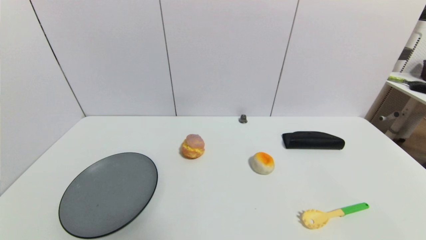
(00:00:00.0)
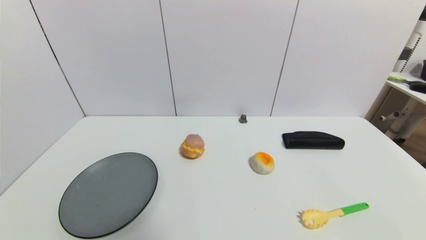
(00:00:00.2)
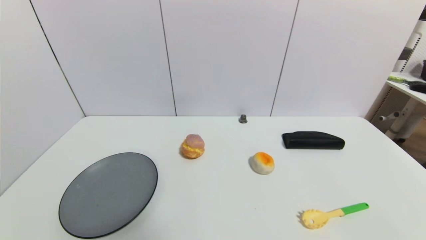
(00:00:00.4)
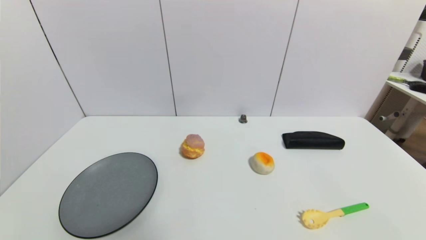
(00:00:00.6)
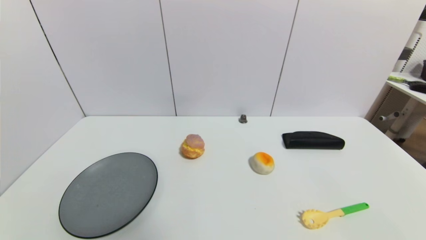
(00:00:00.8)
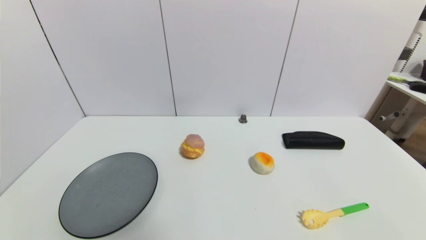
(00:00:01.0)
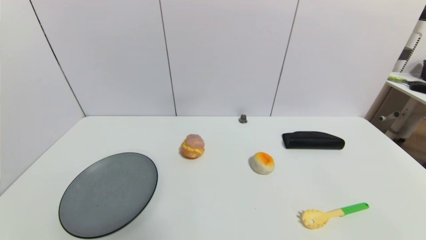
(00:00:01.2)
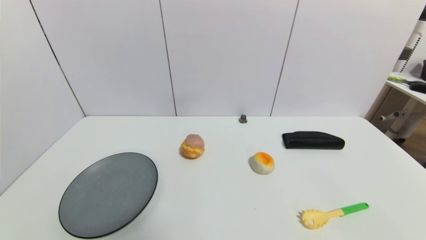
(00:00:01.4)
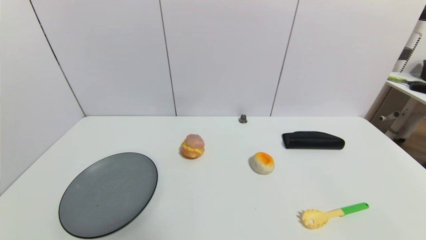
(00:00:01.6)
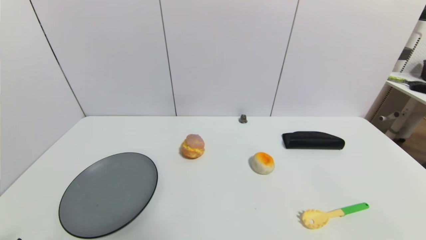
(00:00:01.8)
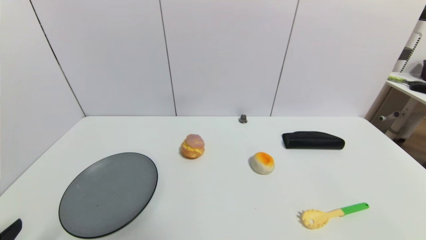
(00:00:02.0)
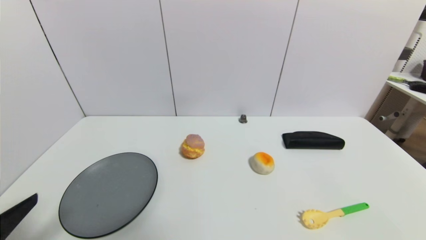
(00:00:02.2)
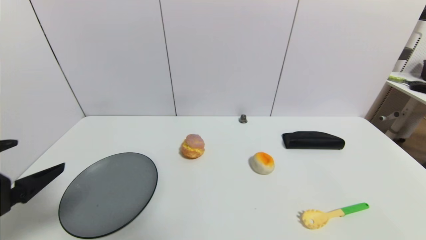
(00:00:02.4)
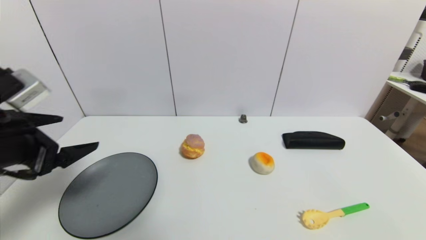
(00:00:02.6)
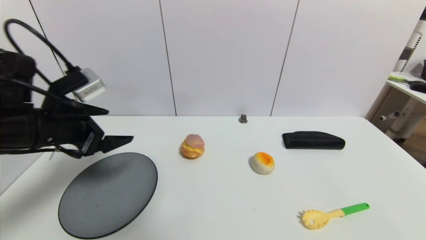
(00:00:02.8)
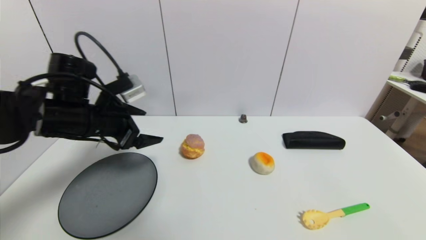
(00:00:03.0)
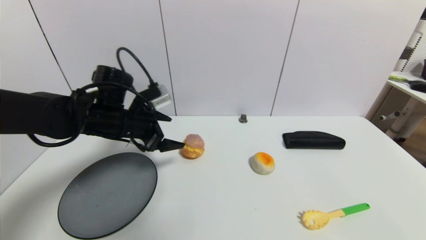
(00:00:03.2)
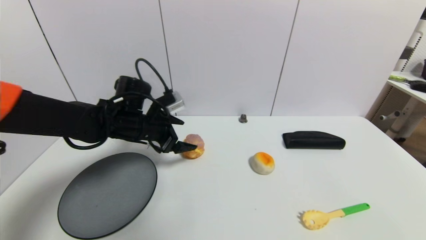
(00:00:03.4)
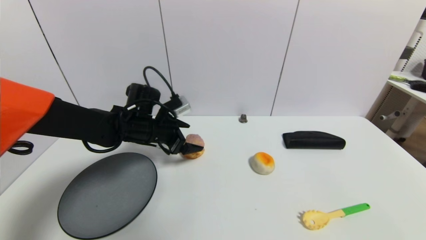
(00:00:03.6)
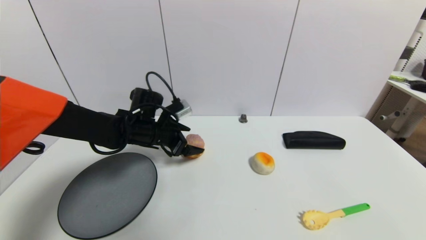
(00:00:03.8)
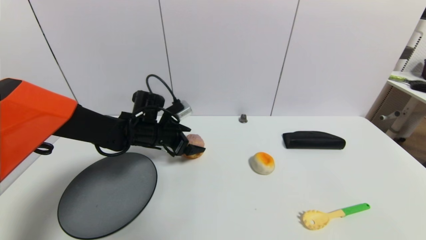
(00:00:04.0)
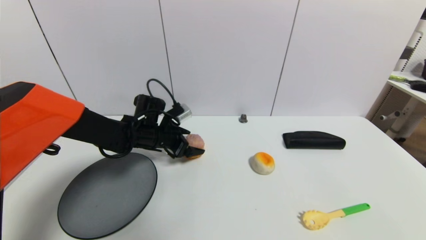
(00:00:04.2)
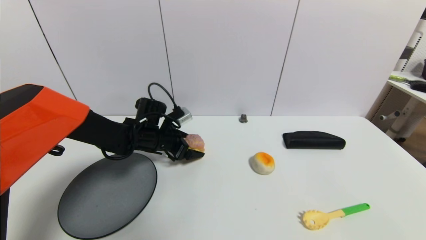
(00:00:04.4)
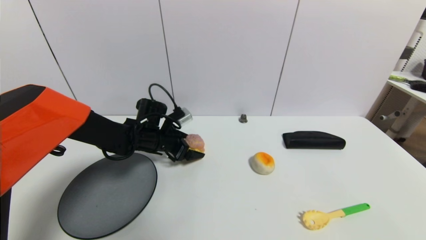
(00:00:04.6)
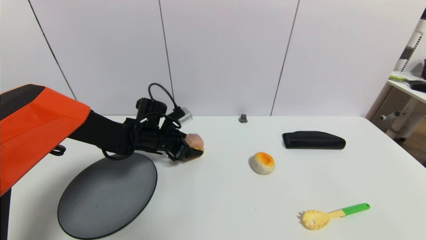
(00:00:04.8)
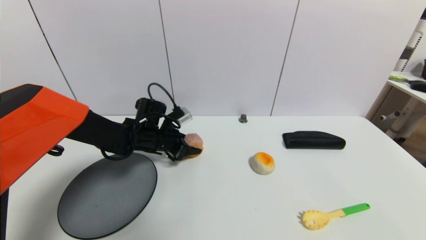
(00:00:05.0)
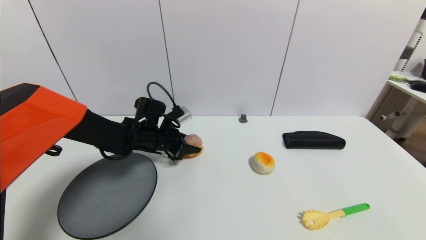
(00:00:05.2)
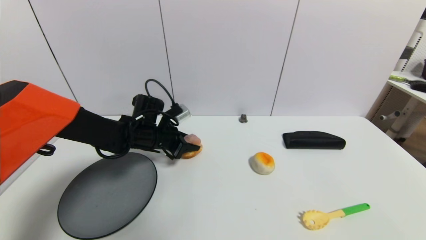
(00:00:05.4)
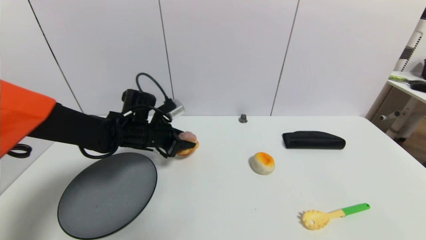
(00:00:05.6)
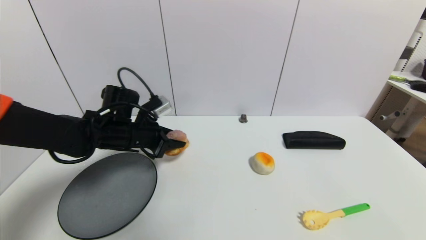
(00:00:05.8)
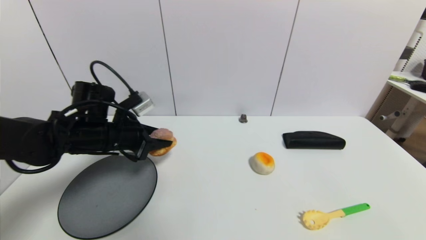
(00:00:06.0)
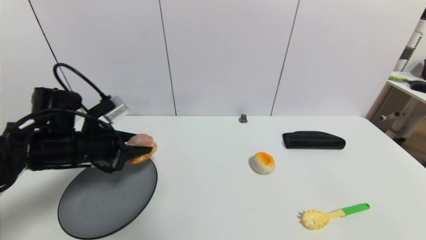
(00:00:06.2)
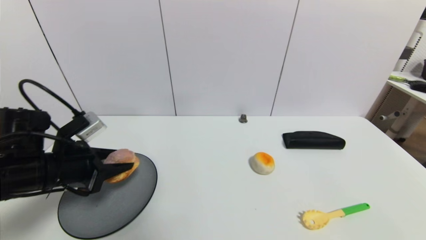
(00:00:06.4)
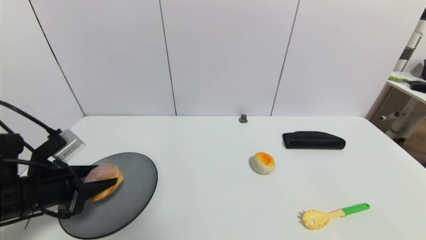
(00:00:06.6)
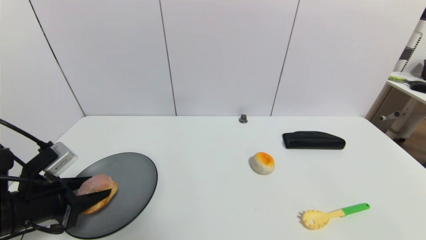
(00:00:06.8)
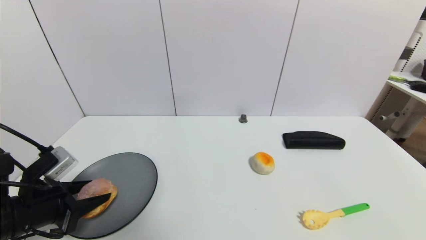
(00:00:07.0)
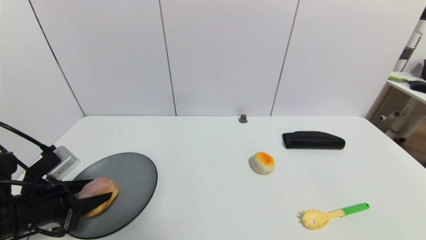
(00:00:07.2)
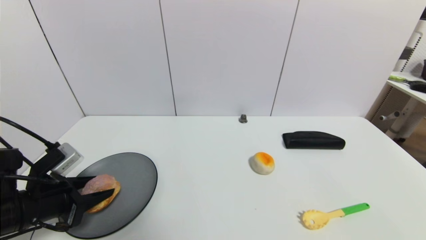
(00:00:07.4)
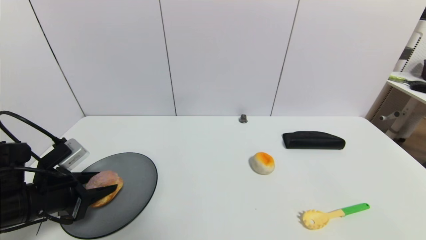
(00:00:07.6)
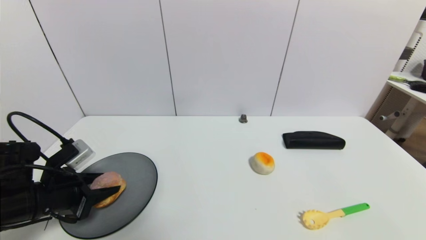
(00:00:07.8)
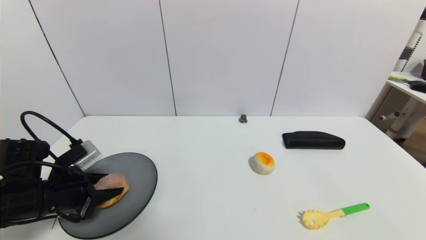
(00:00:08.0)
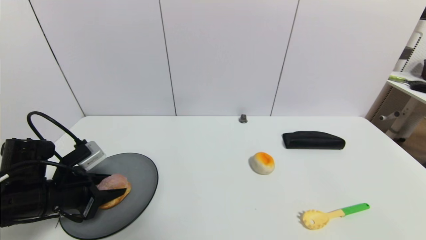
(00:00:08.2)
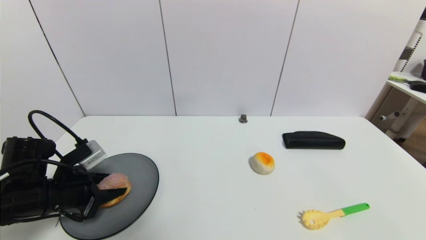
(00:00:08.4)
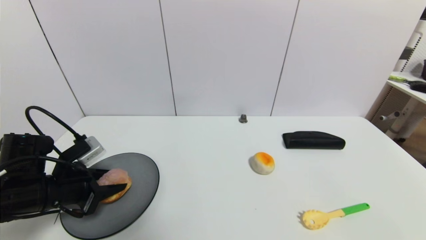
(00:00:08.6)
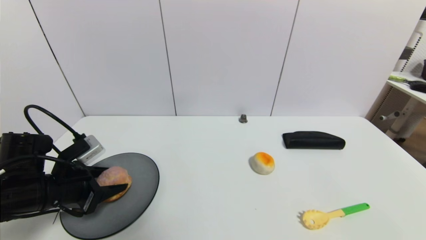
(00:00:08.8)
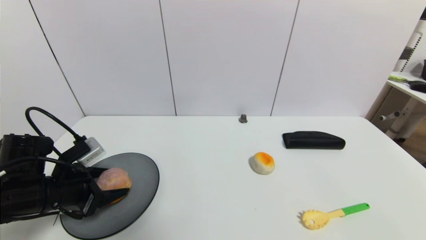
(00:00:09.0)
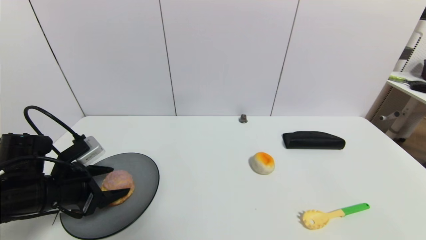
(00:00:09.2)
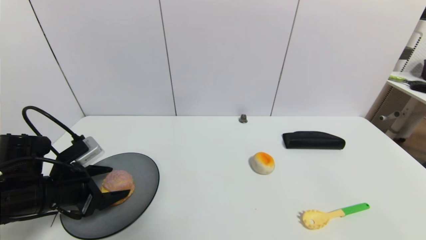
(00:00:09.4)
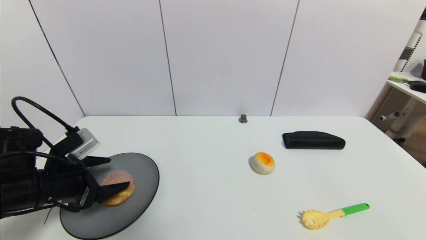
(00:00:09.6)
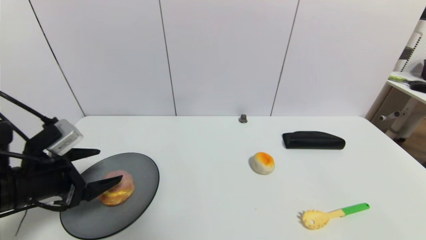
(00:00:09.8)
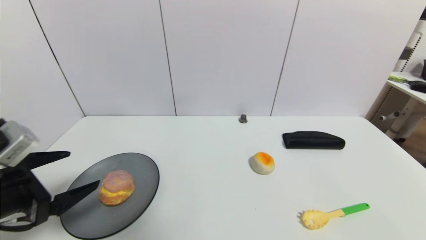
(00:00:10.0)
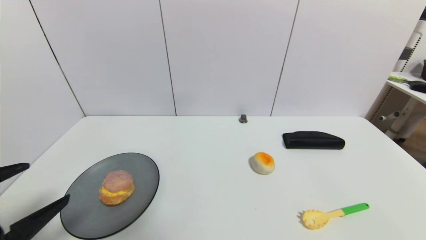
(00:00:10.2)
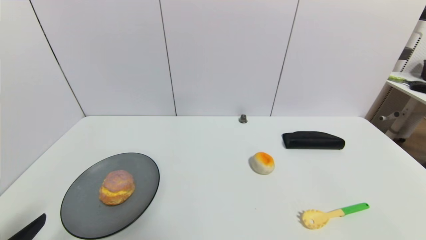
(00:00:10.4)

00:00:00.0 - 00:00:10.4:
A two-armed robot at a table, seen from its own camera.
Task of the whole recording: use a gripper to pick the target object and place on the gray plate.
Step, 00:00:00.0 - 00:00:05.4: Grasp the round bread with the left gripper.
Step, 00:00:05.6 - 00:00:09.6: Place the round bread on the gray plate with the left gripper.
00:00:00.0 - 00:00:01.4: Both grippers stay put.
00:00:01.4 - 00:00:03.0: The left gripper heads forward and upward, covering about 35 cm.
00:00:03.0 - 00:00:04.4: The left gripper goes roughly 15 cm downward, forward and to the right.
00:00:04.4 - 00:00:06.0: The left gripper goes roughly 15 cm backward, upward and to the left, and closes up.
00:00:06.0 - 00:00:07.4: The left gripper goes roughly 15 cm backward, to the left and downward.
00:00:07.4 - 00:00:09.0: The left gripper opens up.
00:00:09.0 - 00:00:10.4: The left gripper heads backward, covering approximately 20 cm, and opens its fingers.
